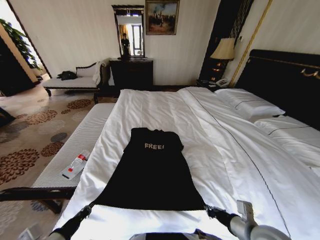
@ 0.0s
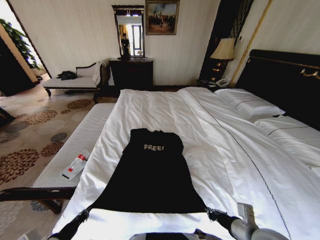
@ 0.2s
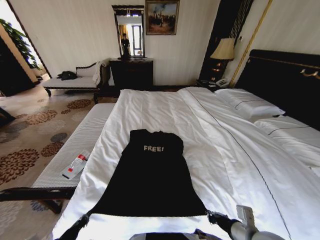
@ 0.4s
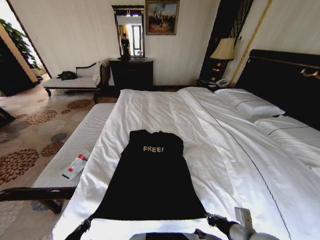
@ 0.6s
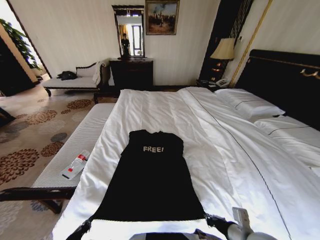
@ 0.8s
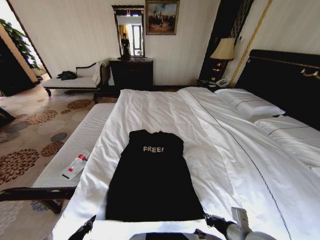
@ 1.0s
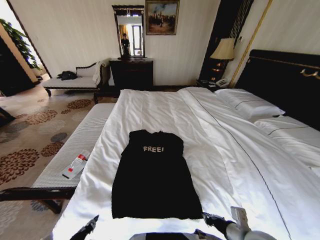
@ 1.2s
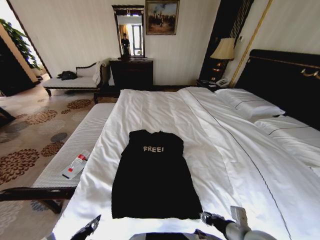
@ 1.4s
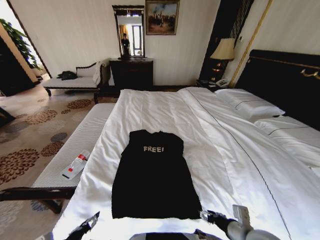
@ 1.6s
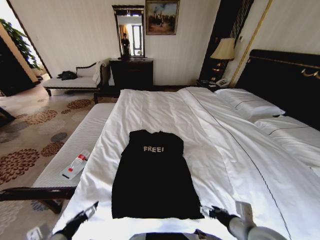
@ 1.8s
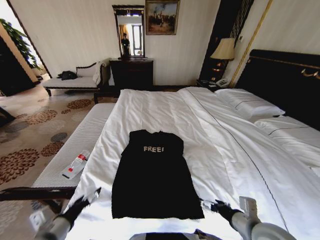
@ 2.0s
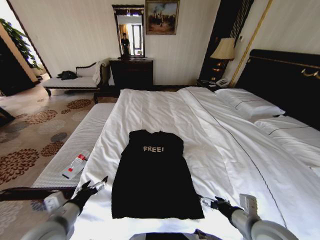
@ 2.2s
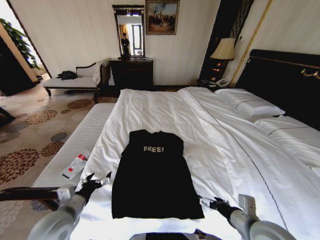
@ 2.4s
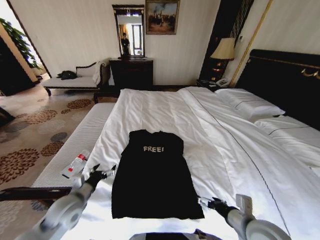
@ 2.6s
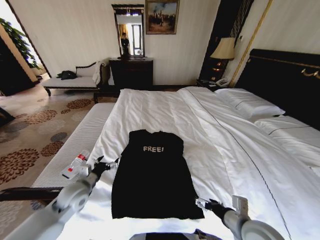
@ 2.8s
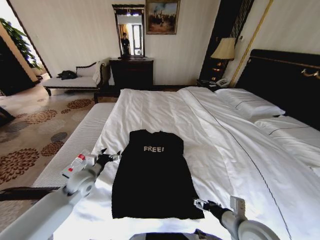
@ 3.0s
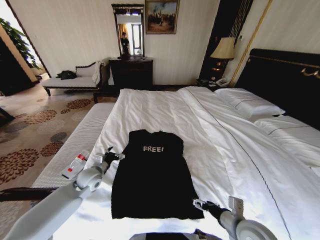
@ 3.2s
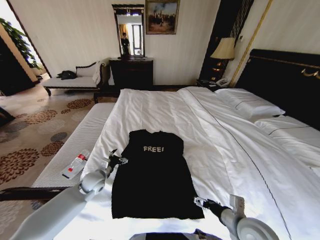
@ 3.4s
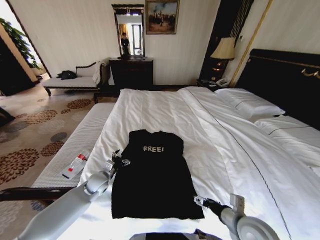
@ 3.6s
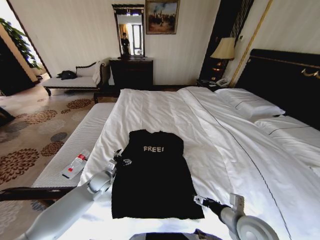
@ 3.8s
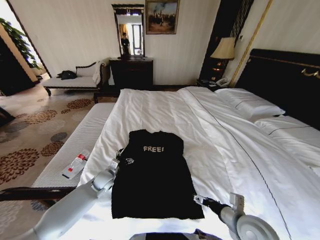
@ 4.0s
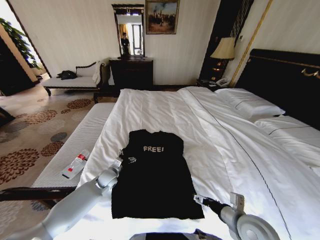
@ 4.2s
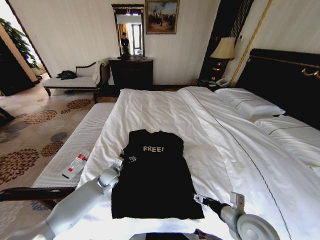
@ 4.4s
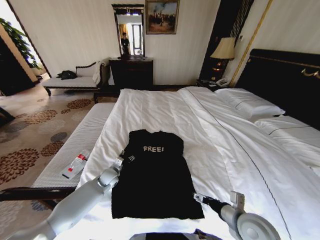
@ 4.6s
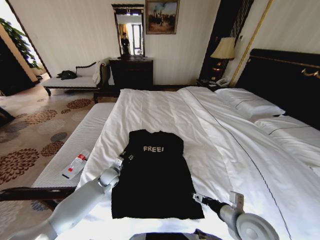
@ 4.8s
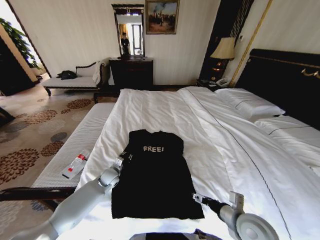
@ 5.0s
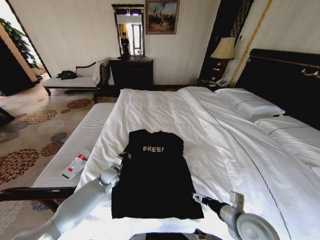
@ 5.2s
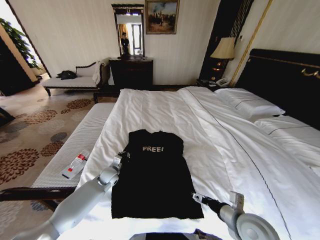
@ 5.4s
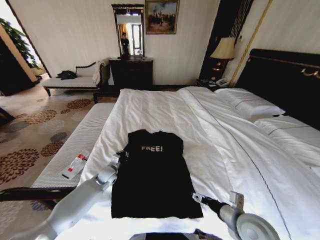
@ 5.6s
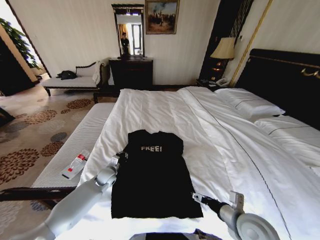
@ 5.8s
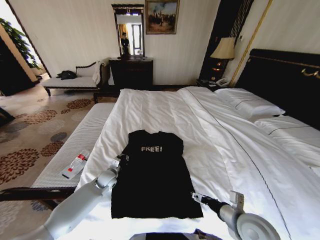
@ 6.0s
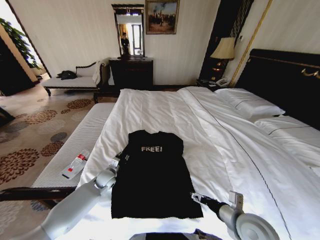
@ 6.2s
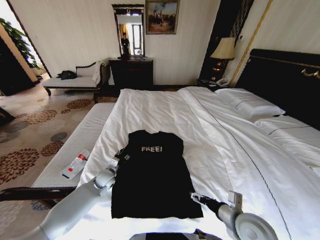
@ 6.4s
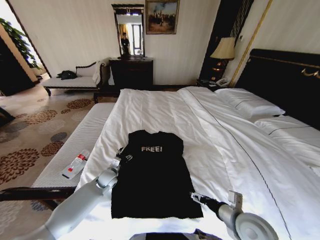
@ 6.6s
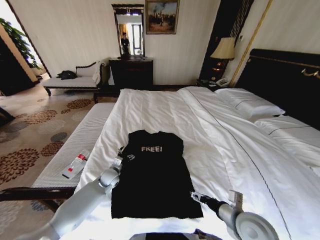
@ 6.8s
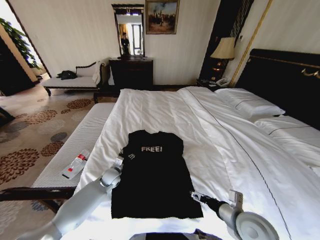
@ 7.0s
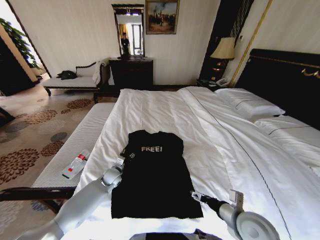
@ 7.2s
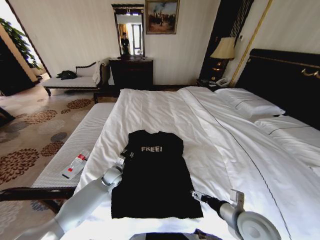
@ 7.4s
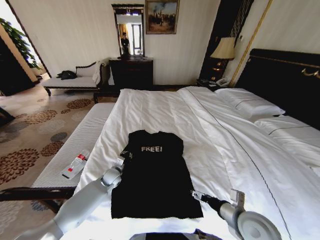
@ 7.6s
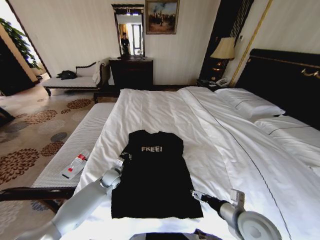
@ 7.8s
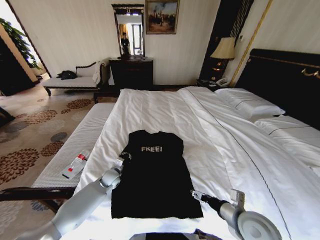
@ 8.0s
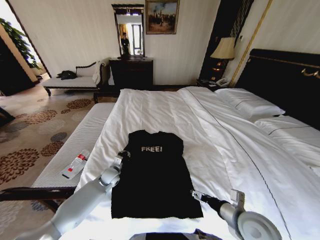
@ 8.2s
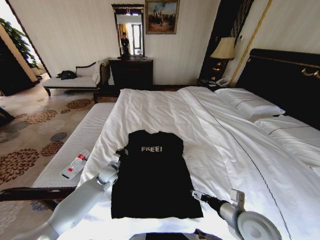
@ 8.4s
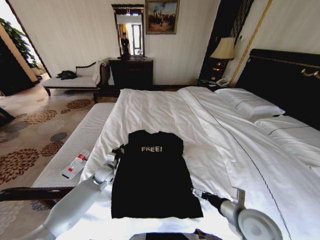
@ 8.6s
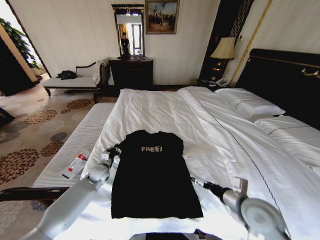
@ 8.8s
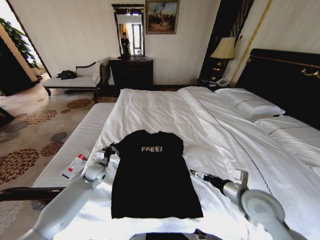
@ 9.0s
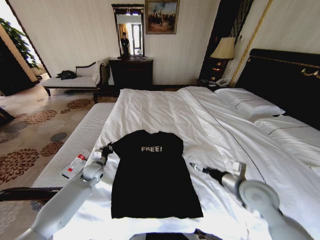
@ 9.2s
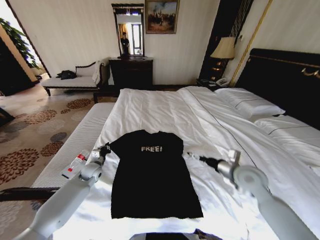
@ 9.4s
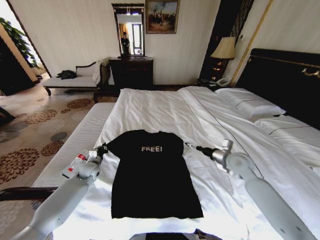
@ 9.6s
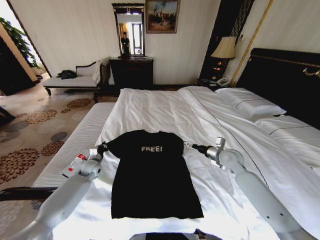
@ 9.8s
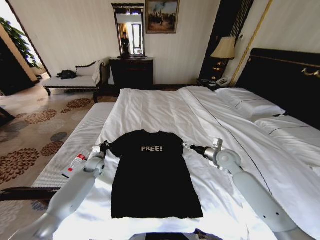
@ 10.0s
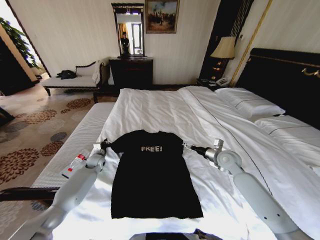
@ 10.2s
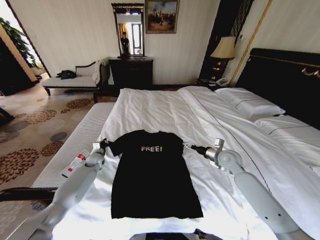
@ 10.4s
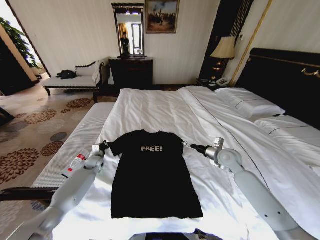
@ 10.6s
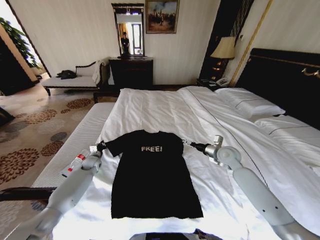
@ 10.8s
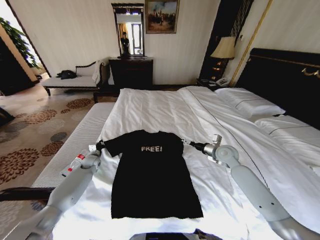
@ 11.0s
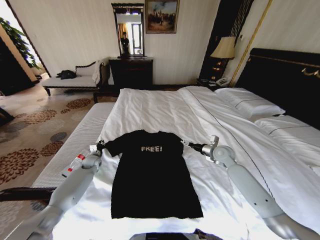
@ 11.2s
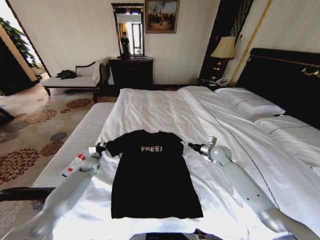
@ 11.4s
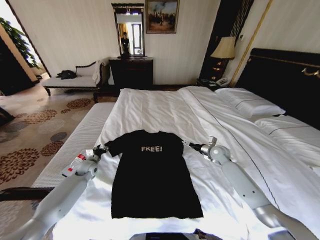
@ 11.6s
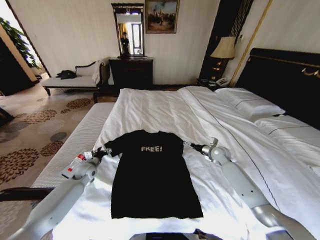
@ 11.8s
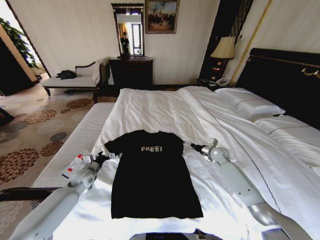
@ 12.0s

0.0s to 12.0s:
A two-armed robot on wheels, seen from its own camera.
Task of the whole recording: Fold the clothes on the bed.
0.0s to 1.6s: The left gripper opens up; the right gripper opens up.
1.6s to 3.0s: The right gripper opens up. Meanwhile the left gripper travels forward by some 25 cm, and opens its fingers.
3.0s to 4.4s: The left gripper heads downward, forward and to the right, covering approximately 15 cm.
4.4s to 6.0s: The left gripper closes its fingers.
6.0s to 7.6s: The left gripper opens, then closes once more.
7.6s to 9.0s: The left gripper heads to the left, covering roughly 5 cm, while the right gripper shifts by about 5 cm.
9.0s to 10.4s: The right gripper shifts about 20 cm forward. Meanwhile the left gripper is displaced forward by approximately 10 cm.
10.4s to 12.0s: The right gripper shifts approximately 10 cm forward and downward; the left gripper is displaced backward by approximately 10 cm, and opens up.

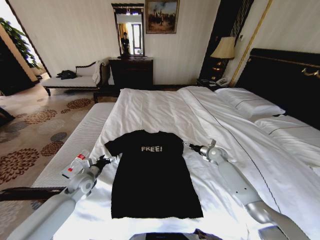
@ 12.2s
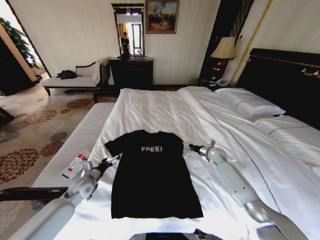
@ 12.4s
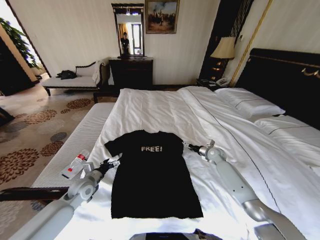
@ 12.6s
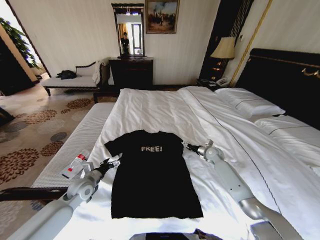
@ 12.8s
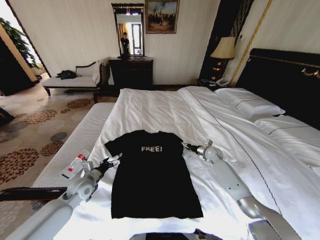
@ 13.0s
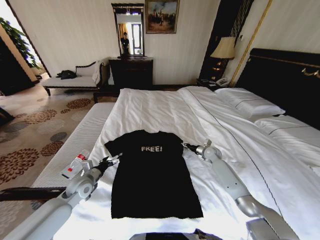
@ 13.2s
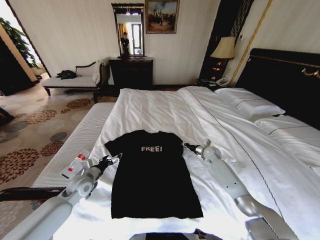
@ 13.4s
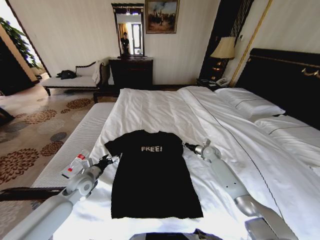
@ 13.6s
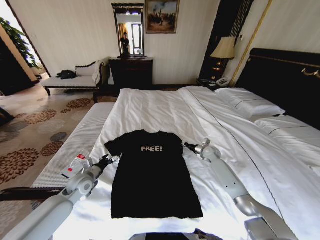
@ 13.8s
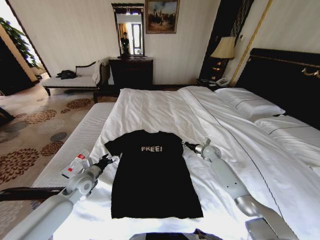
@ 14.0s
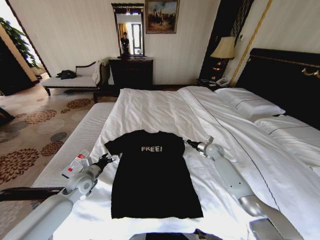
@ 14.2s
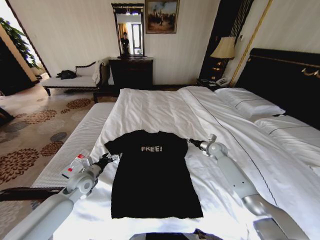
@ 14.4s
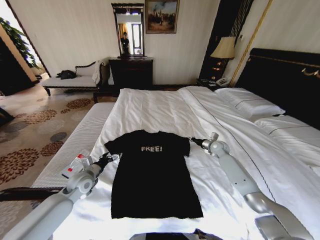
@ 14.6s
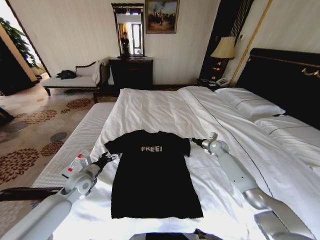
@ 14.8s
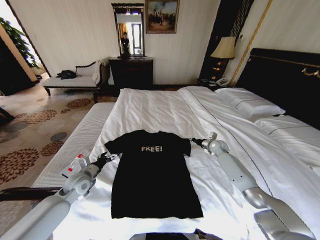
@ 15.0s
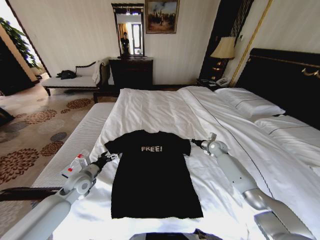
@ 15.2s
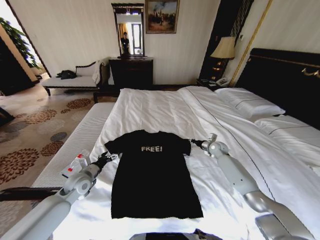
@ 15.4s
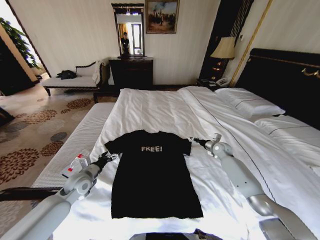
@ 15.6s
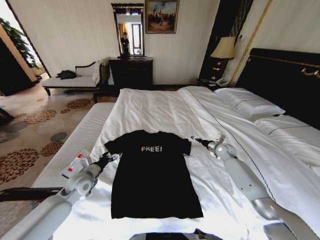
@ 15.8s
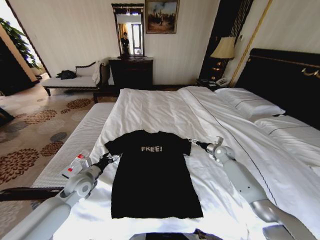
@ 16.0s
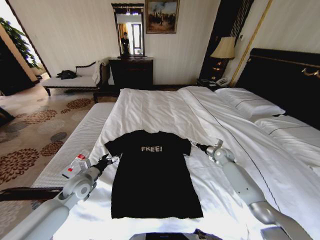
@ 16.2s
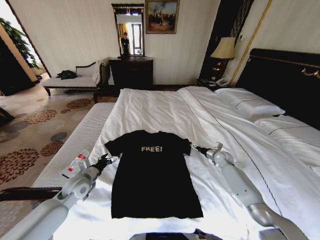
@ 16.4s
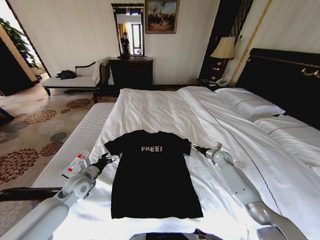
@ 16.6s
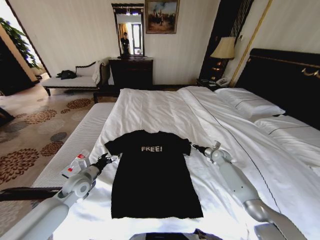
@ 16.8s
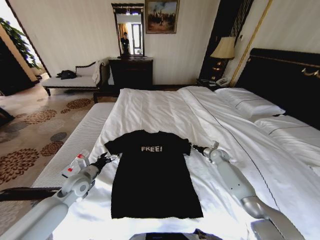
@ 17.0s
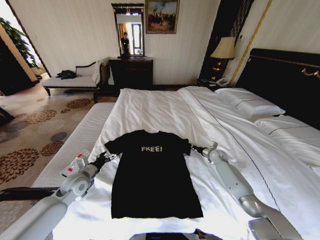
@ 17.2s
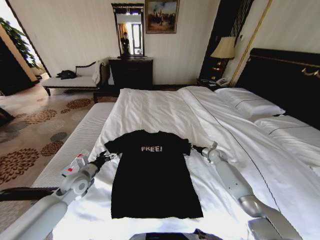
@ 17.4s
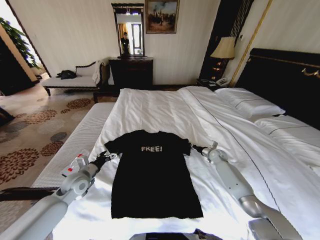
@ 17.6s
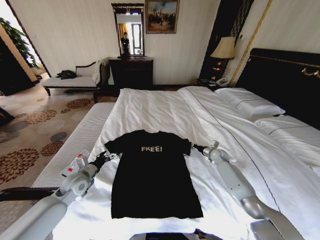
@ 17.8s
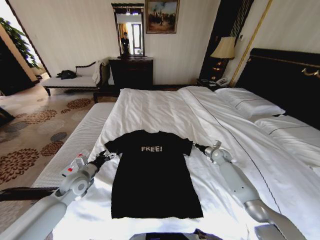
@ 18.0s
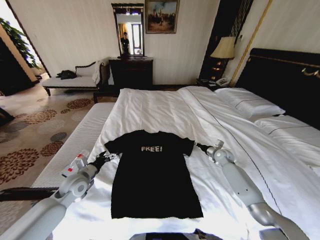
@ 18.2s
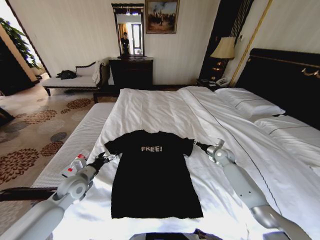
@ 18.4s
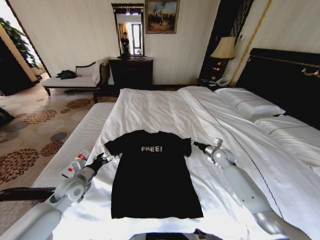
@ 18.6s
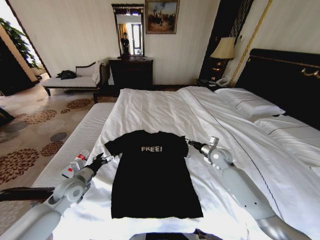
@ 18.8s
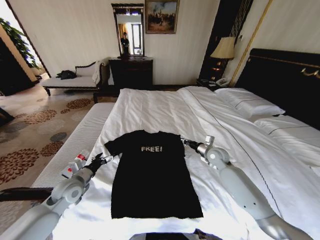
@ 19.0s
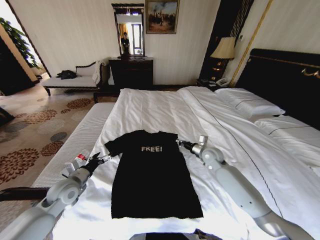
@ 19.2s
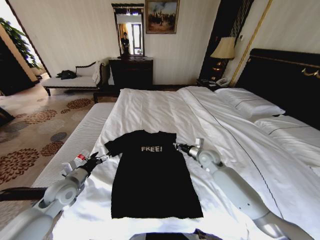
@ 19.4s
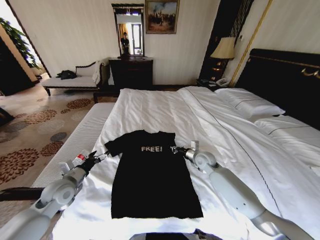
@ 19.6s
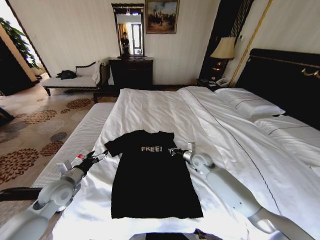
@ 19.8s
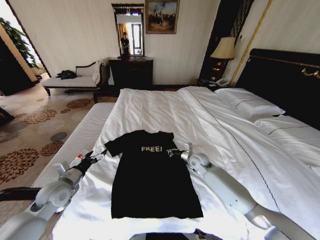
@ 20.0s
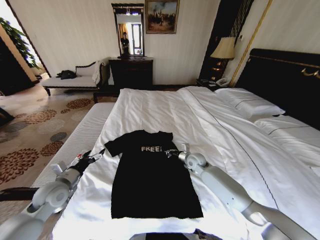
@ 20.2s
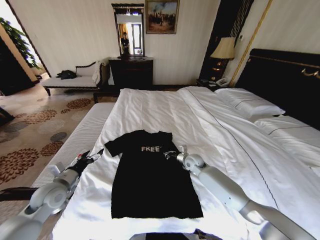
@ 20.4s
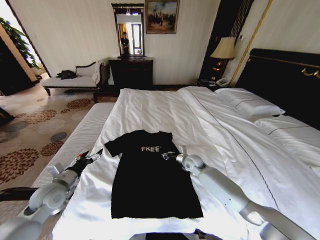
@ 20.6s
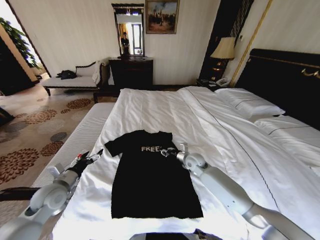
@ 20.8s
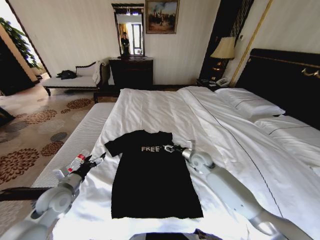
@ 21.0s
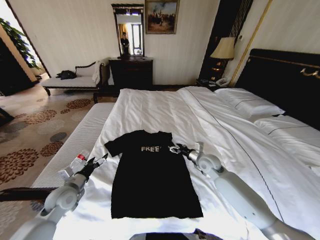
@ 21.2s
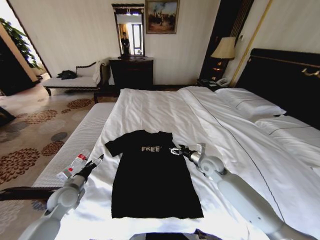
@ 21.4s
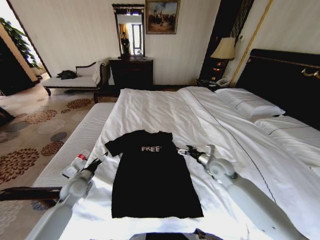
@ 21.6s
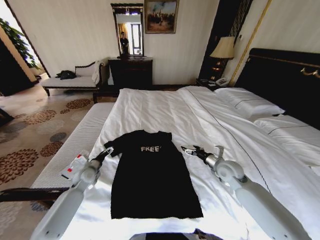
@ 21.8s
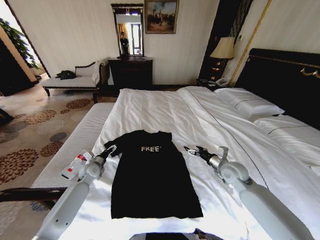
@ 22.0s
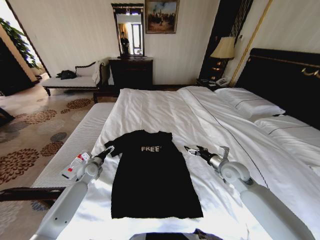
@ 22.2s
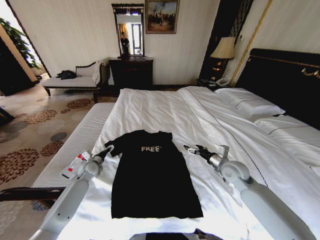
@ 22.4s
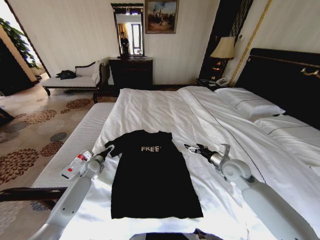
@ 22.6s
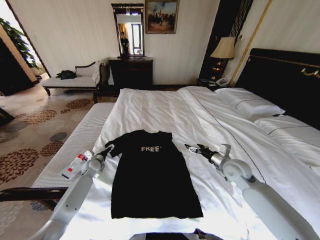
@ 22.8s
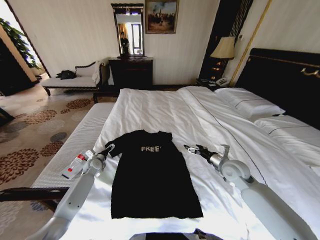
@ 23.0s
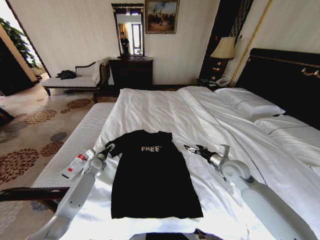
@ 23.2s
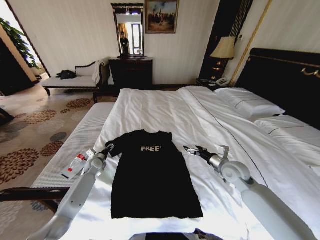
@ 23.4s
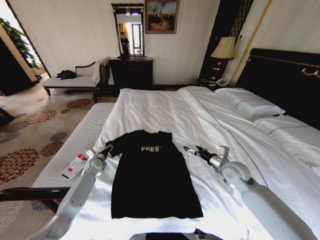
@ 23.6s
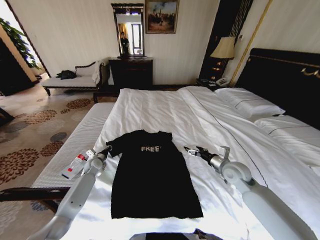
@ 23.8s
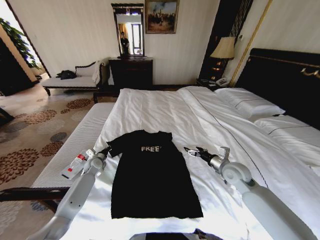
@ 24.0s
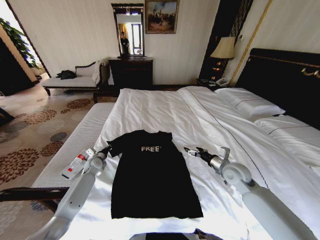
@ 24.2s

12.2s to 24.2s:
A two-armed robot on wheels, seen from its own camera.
Task of the whole recording: Fold the clothes on the bed.
12.2s to 13.8s: The right gripper closes up.
13.8s to 15.2s: The grippers stay close to where they were, moving slightly.
15.2s to 16.6s: The right gripper ends up approximately 5 cm from where it was, and opens.
16.6s to 18.2s: The right gripper closes.
18.2s to 19.8s: The right gripper moves to the left, some 15 cm. The left gripper moves roughly 5 cm.
19.8s to 21.2s: The right gripper opens up.
21.2s to 22.6s: The left gripper is displaced forward and downward by about 20 cm. The right gripper travels to the right and backward by approximately 10 cm.
22.6s to 24.2s: The left gripper closes its fingers.
